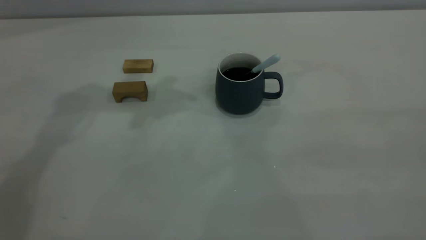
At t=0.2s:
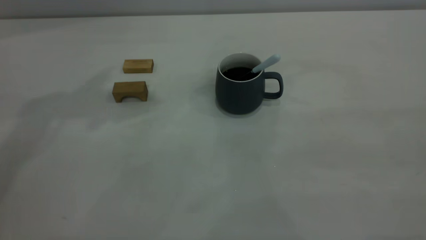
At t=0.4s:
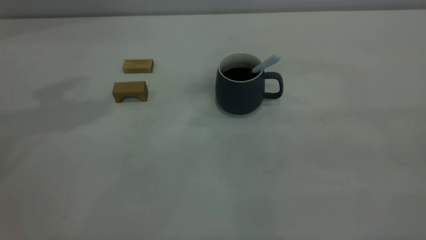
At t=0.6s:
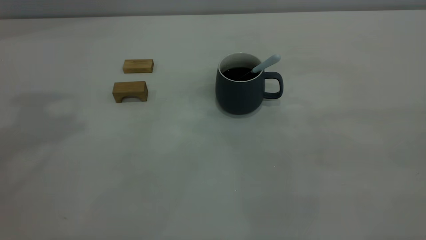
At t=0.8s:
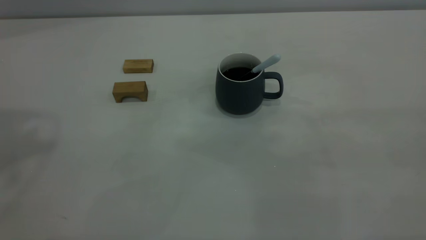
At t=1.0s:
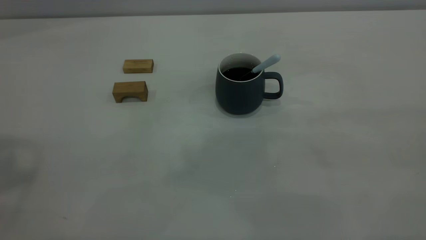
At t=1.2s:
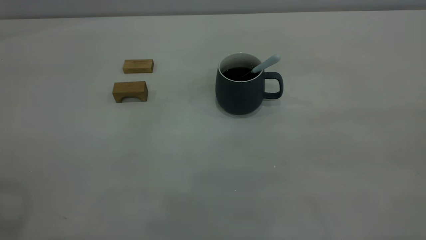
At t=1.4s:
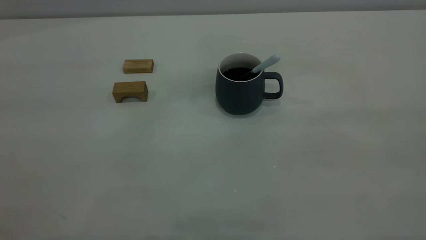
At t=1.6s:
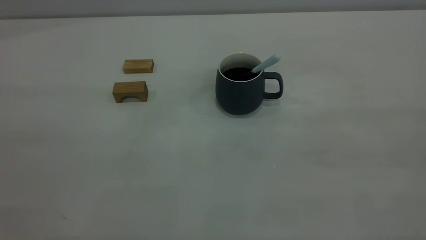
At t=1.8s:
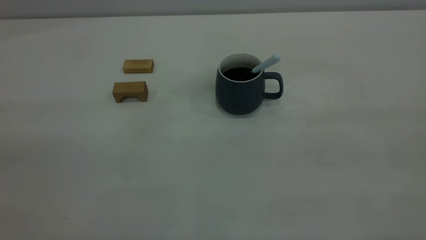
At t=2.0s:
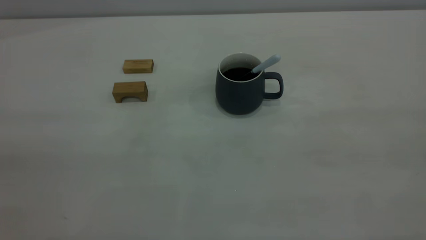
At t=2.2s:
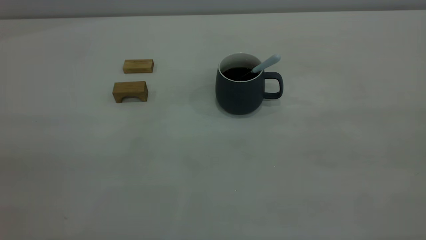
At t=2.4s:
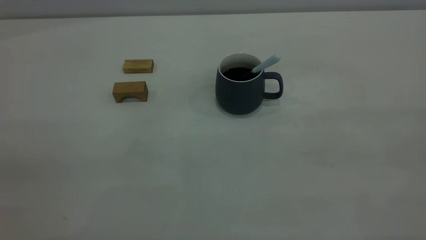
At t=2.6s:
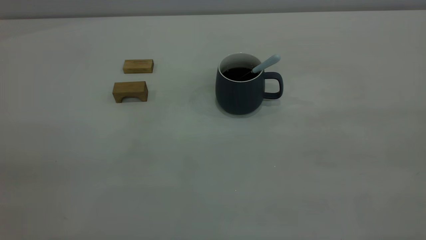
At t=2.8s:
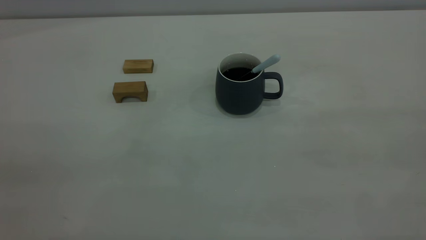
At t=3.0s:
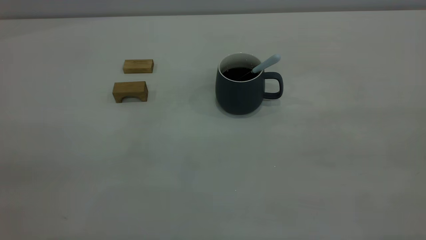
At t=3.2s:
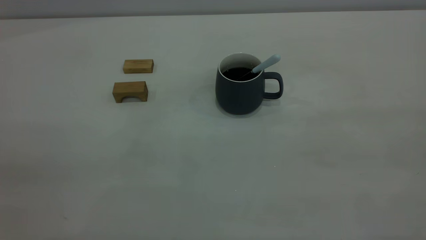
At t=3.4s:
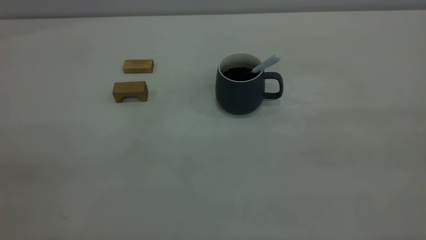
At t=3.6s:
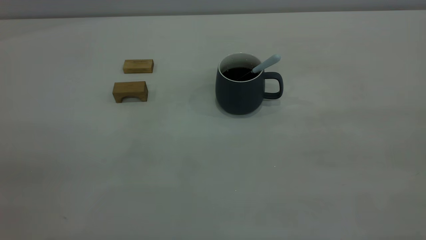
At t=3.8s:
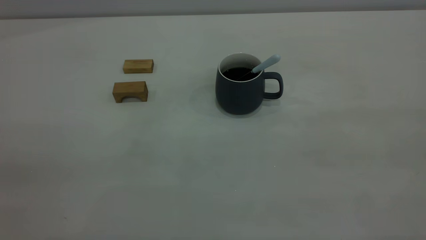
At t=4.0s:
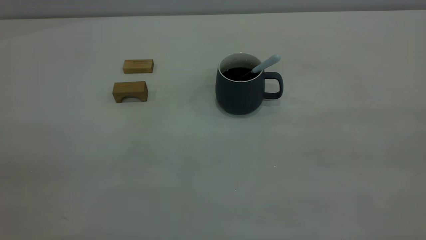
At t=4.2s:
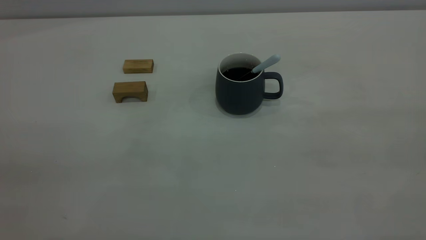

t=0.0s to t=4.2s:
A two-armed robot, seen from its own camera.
t=2.8s to t=4.2s: Both grippers stay about where they are.
